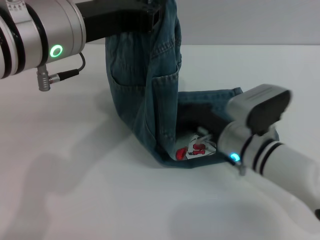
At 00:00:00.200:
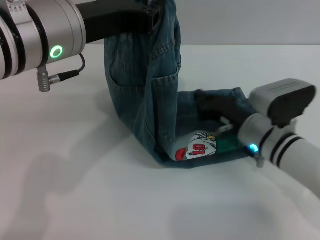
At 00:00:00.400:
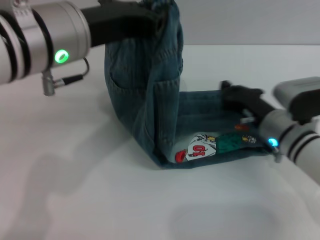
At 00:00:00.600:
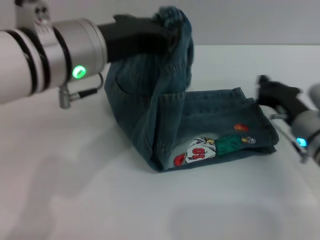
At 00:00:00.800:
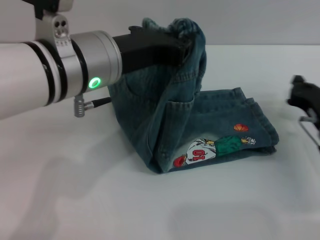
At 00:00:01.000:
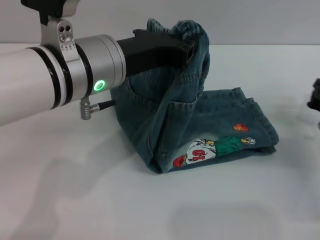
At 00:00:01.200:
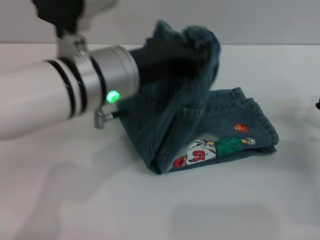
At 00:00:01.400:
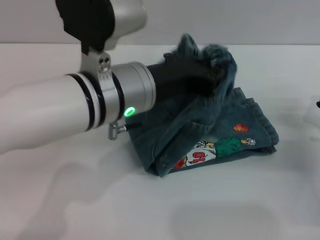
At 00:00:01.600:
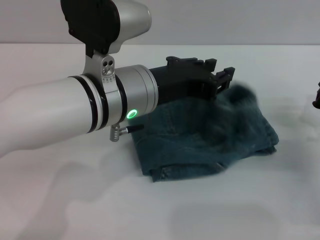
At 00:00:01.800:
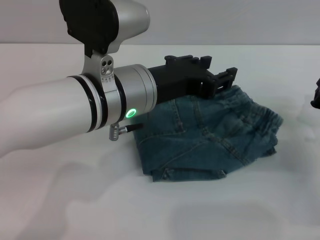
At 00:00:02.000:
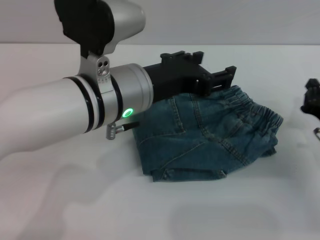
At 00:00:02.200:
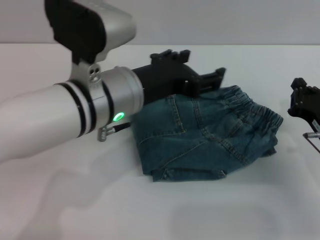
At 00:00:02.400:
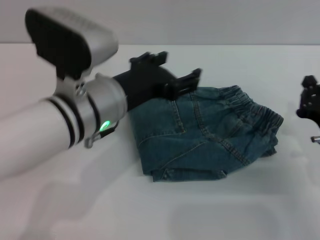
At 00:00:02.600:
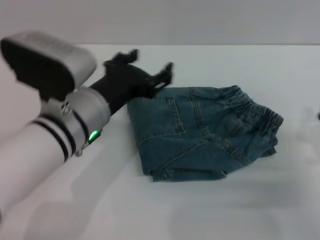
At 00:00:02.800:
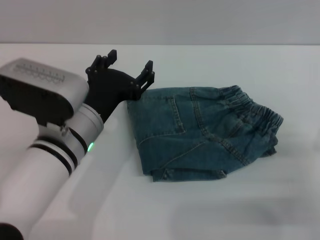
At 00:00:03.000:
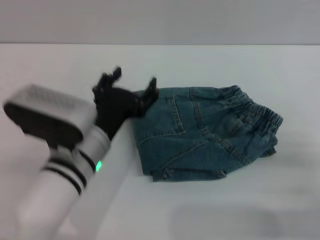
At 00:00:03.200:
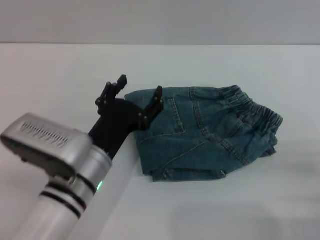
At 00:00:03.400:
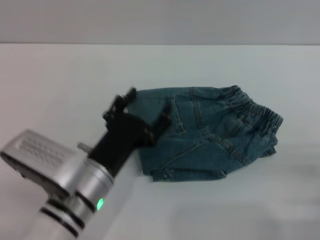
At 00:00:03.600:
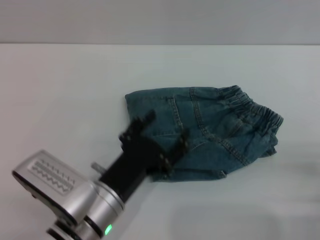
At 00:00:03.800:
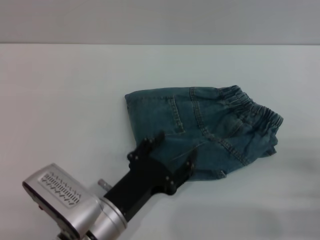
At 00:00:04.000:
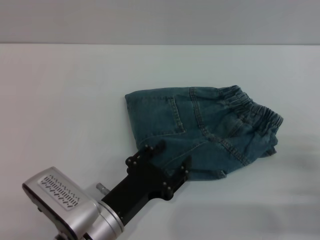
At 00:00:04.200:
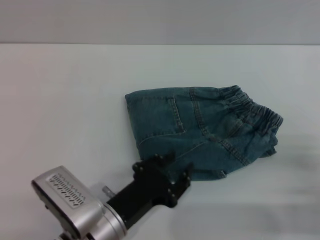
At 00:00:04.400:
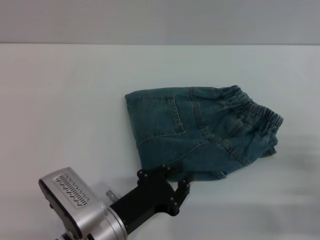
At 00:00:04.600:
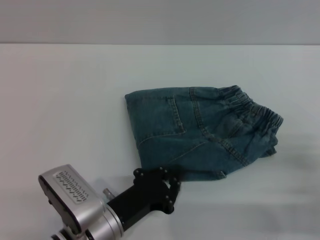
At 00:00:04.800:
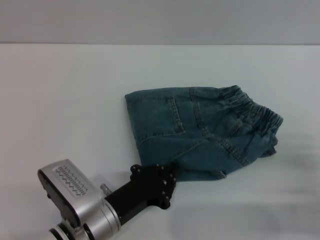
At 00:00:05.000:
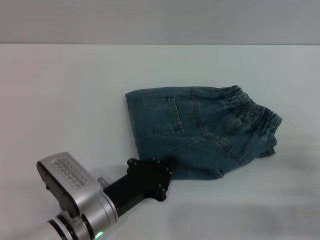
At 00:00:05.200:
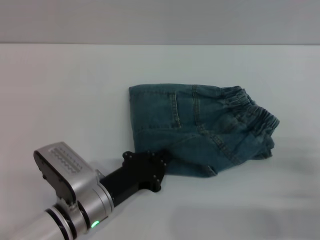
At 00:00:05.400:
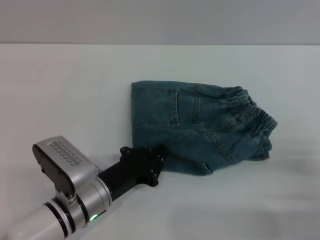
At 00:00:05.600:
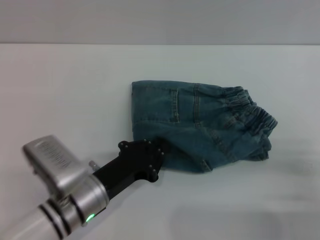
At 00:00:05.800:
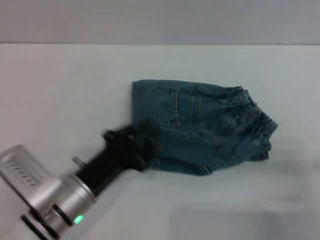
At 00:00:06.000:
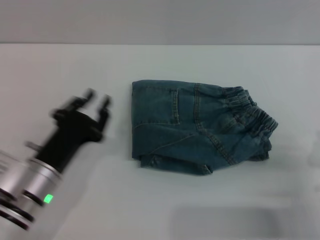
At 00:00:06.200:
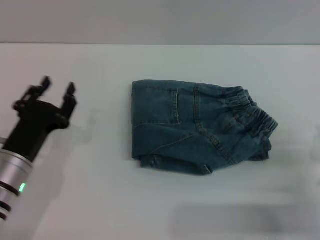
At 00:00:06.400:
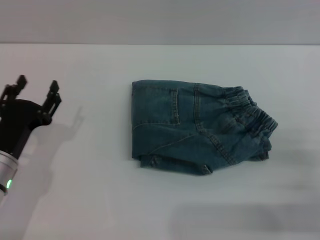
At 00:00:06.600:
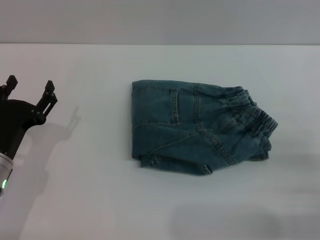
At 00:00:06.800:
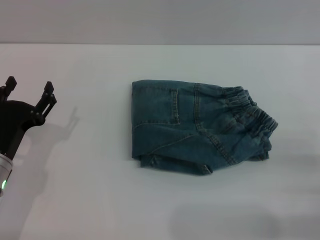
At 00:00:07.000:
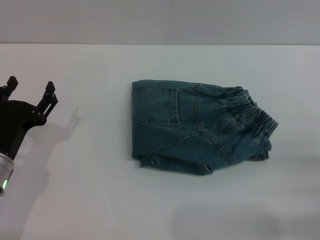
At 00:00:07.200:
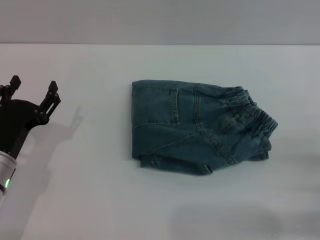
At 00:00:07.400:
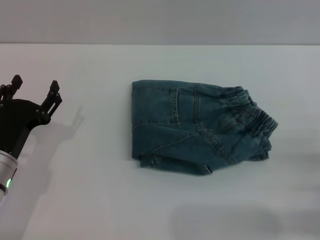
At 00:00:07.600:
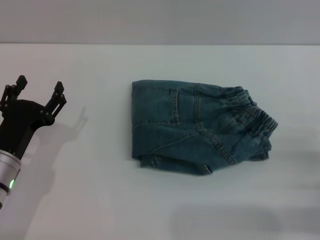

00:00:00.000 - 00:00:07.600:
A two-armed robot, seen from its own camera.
Step, 00:00:00.000 - 00:00:02.200: Fold the pants from left to right with the left gripper.
00:00:00.000 - 00:00:01.600: The left gripper travels downward and to the right by approximately 10 cm. The right gripper travels to the right by approximately 15 cm.
00:00:01.600 - 00:00:03.000: The left gripper heads downward, covering roughly 10 cm, and opens, while the right gripper goes about 10 cm backward.
00:00:03.000 - 00:00:04.600: The left gripper is displaced downward and backward by about 10 cm, and closes its fingers.
00:00:04.600 - 00:00:06.000: The left gripper shifts roughly 5 cm to the left.
00:00:06.000 - 00:00:07.600: The right gripper opens its fingers. The left gripper moves to the left, roughly 5 cm, and opens its fingers.
